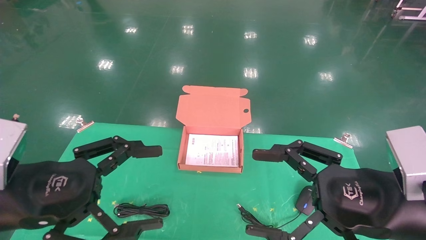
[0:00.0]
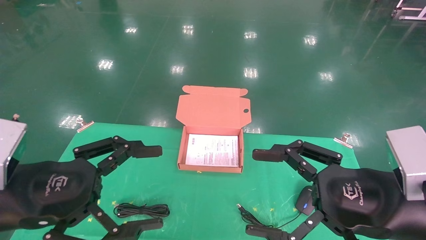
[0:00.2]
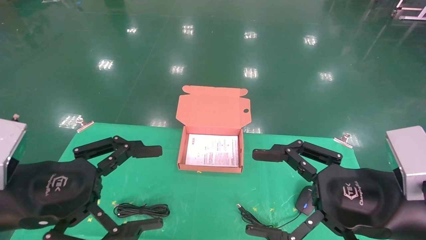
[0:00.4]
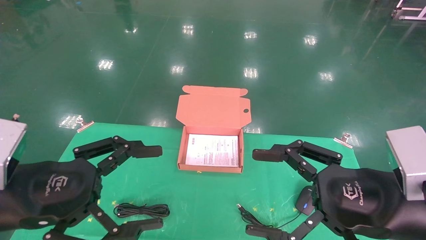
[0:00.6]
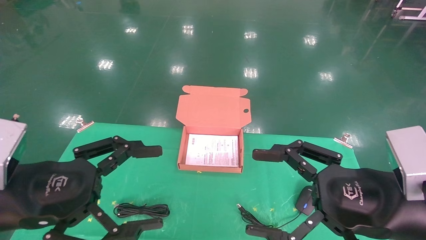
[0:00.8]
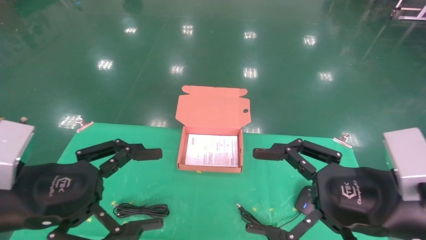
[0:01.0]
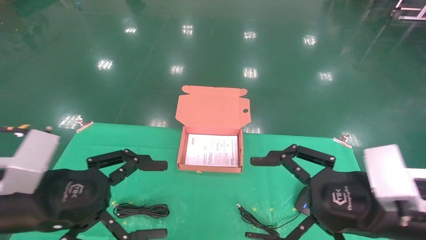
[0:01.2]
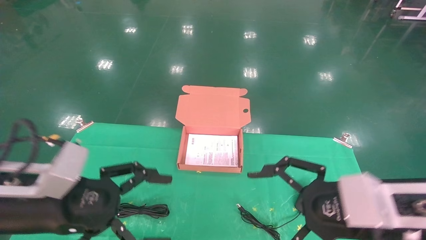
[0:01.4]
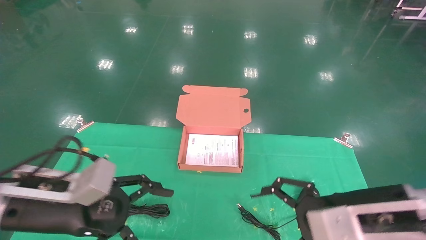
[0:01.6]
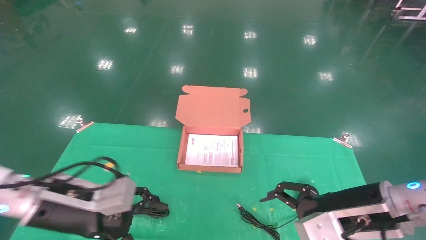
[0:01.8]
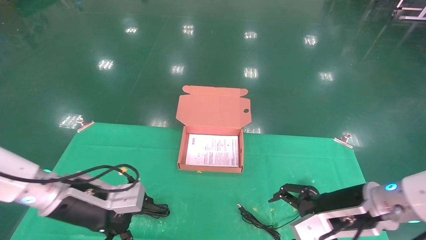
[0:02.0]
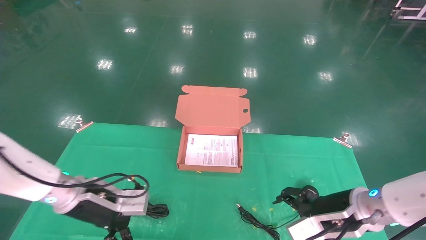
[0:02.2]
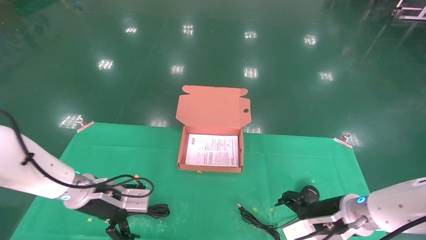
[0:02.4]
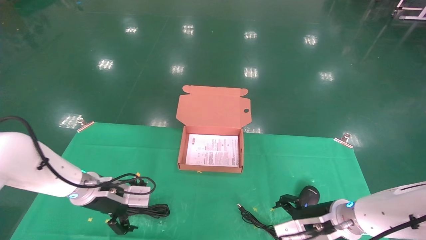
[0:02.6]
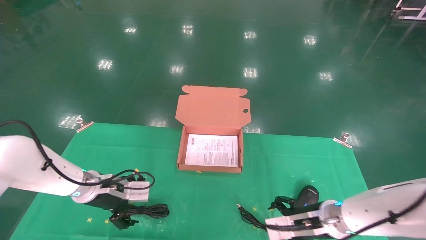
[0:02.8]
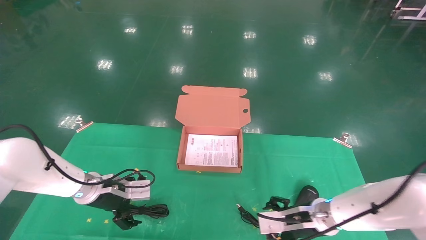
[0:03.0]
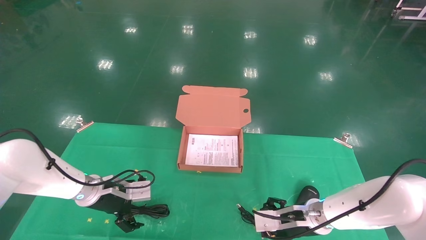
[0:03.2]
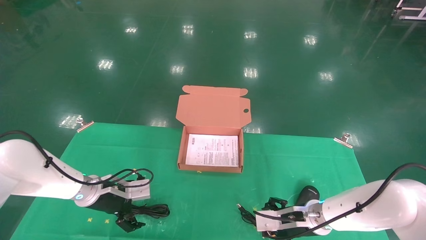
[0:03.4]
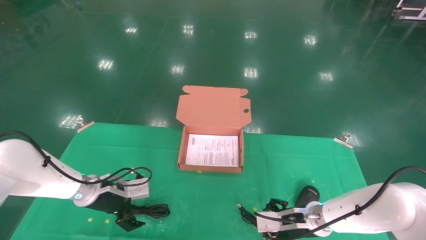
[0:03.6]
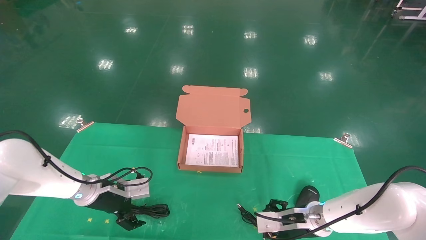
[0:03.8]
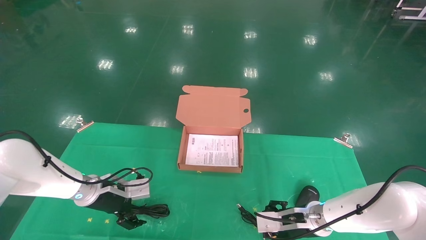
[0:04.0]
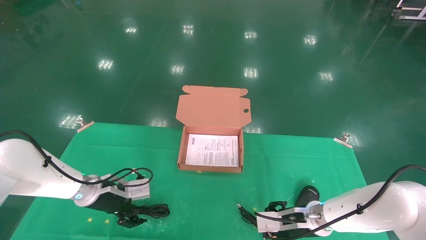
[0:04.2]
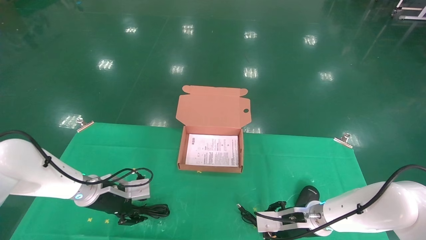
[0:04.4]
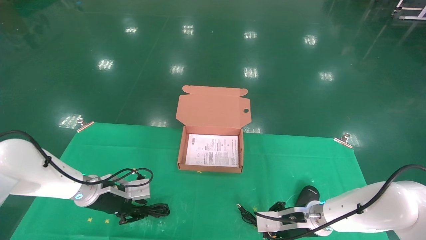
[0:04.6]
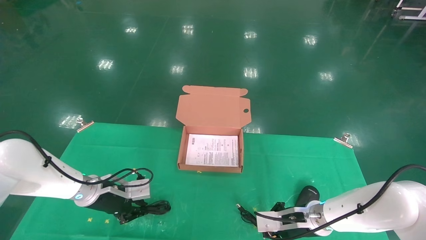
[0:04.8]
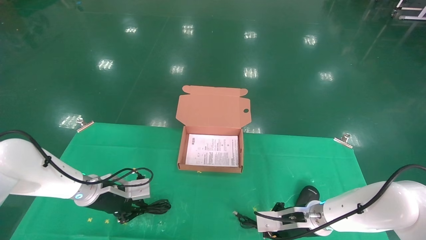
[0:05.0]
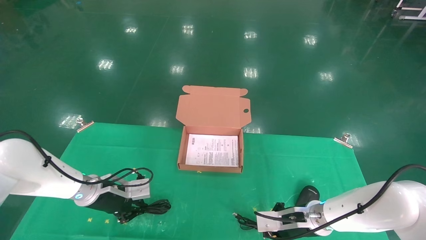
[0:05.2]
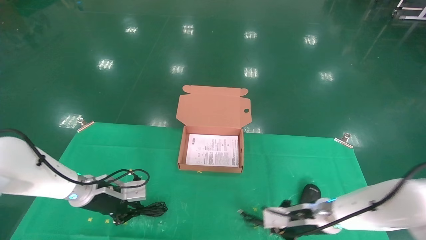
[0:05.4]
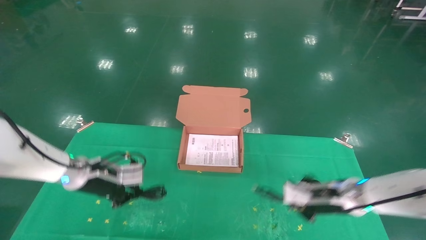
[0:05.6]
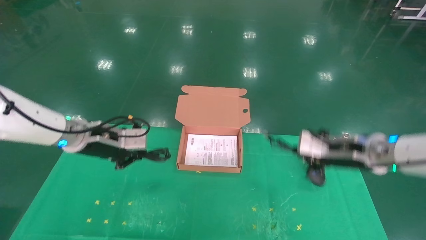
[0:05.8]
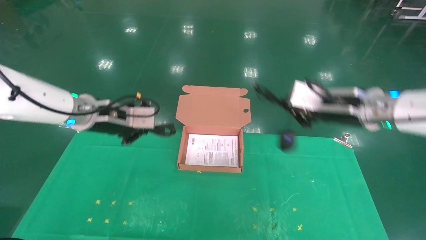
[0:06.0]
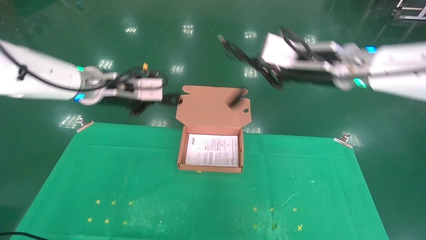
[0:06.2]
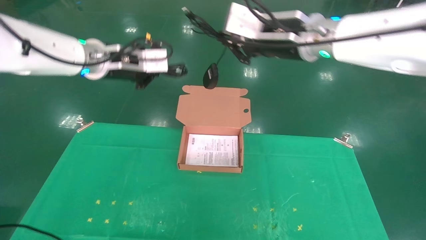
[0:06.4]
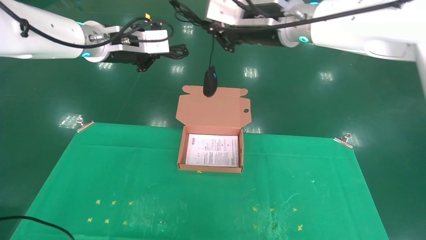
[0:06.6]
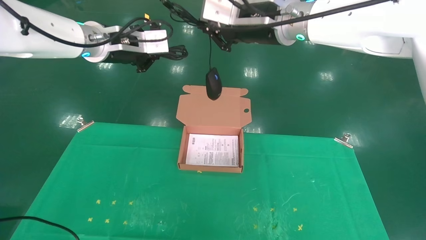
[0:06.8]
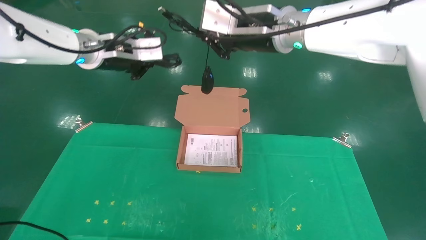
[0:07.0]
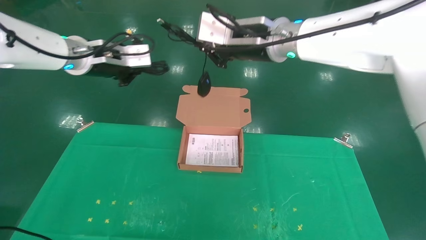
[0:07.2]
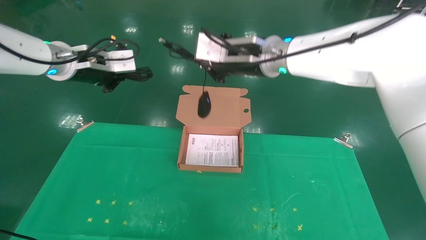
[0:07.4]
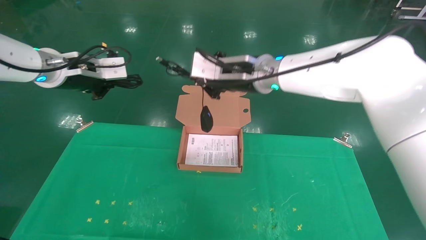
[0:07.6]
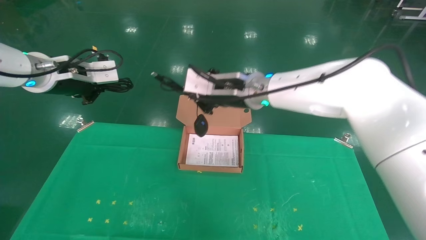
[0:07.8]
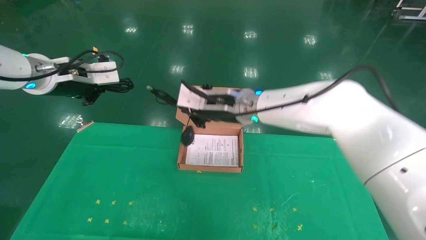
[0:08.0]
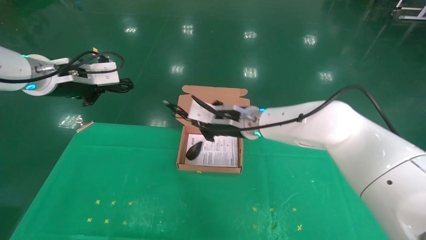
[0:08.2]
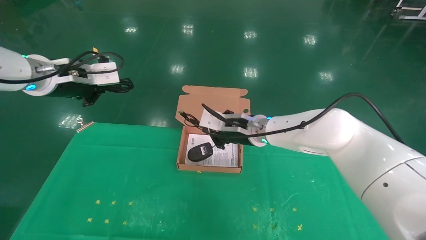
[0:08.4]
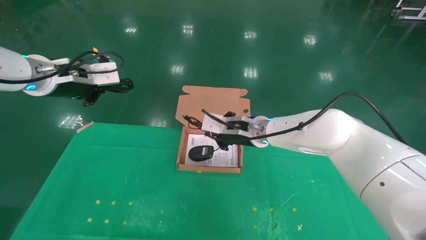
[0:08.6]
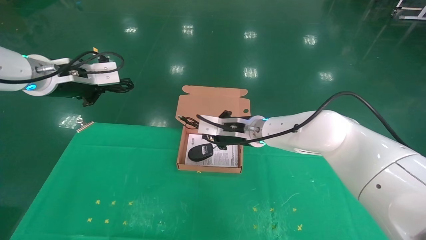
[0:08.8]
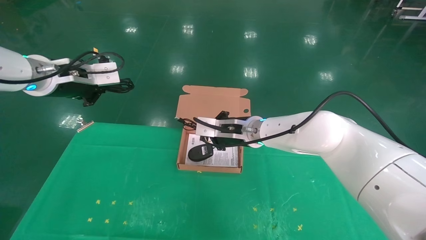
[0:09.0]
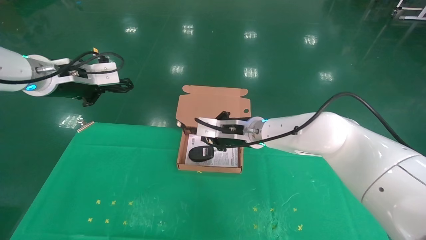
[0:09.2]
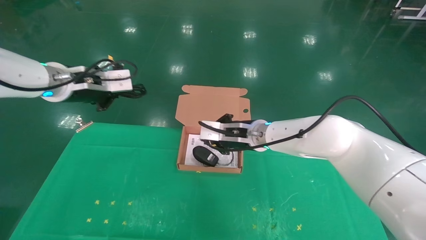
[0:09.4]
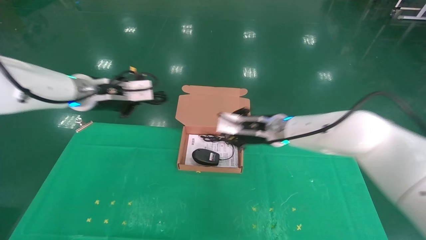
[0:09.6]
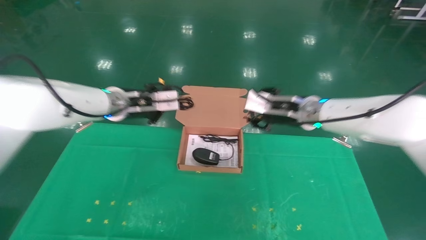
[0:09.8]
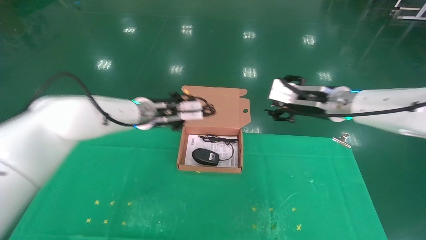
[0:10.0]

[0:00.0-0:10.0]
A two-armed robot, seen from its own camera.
Task of the whole recording: grasp data cable left put into box grasp mouse right put into box.
Step, 0:00.6 to 0:05.8: Grab and pick up both the mouse and power cord from the accessory packaging area at the same time.
0:01.4 to 0:02.8: The two grippers go approximately 20 cm forward and downward.
0:02.8 to 0:04.2: The grippers make only small movements.
0:04.2 to 0:05.8: The two grippers go some 15 cm upward. The left gripper closes its fingers, while the right gripper closes up.
0:05.8 to 0:07.2: The left gripper travels upward by roughly 15 cm; the right gripper travels upward and to the left by some 25 cm.
0:07.2 to 0:08.6: The left gripper changes place by about 5 cm, while the right gripper shifts about 20 cm downward.
0:08.6 to 0:10.0: The left gripper travels to the right, downward and forward by some 20 cm. The right gripper moves to the right and upward, approximately 20 cm, and opens.

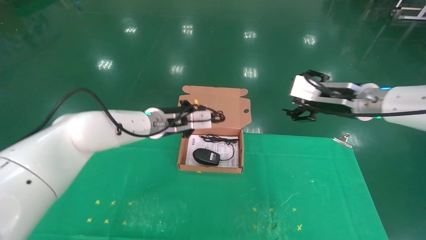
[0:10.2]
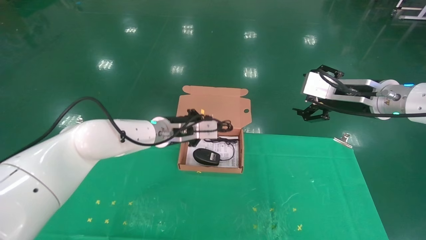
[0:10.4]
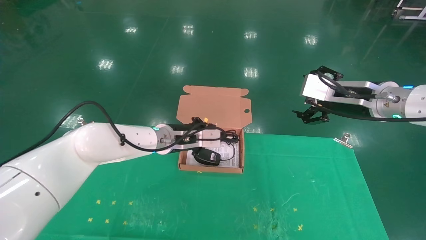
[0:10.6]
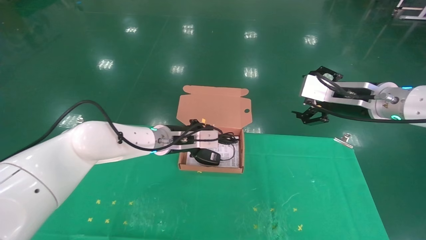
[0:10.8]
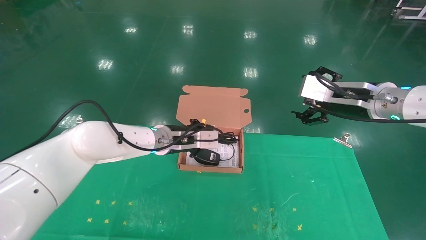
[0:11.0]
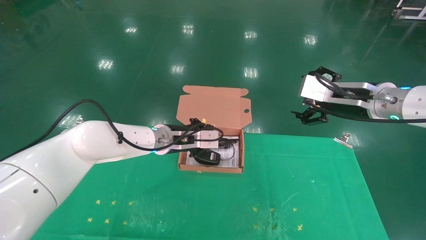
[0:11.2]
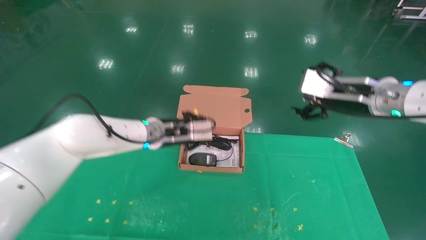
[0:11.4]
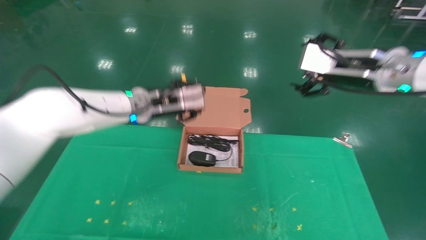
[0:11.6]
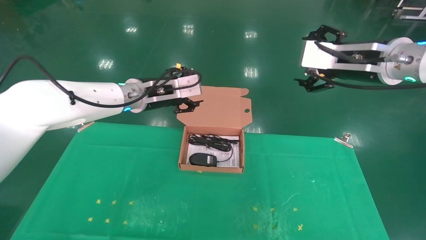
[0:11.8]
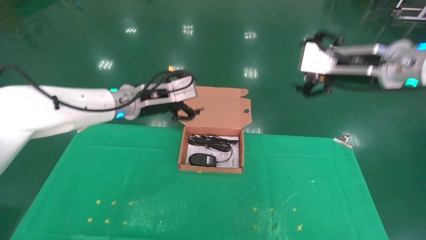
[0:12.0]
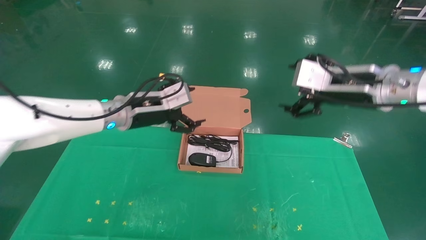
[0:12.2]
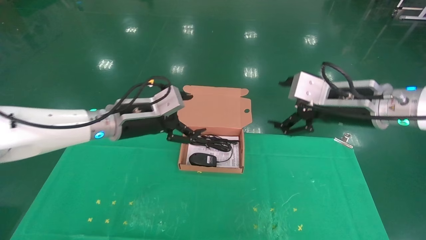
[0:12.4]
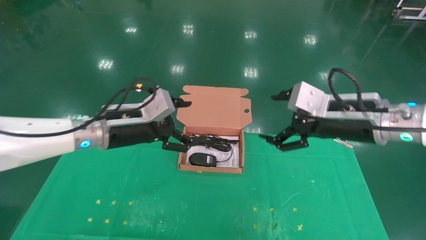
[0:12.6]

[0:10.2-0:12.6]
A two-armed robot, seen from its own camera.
Task of the whole recording: grasp data cable left put into box grasp mouse right put into box.
0:10.2 to 0:11.4: The grippers make only small movements.
0:11.4 to 0:12.6: The right gripper moves downward and backward, some 5 cm; the left gripper moves backward and to the left, some 10 cm, and opens its fingers.

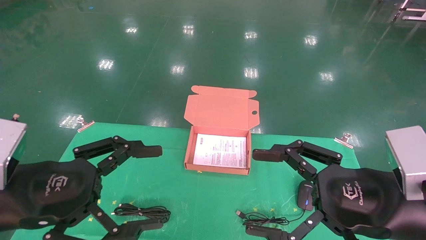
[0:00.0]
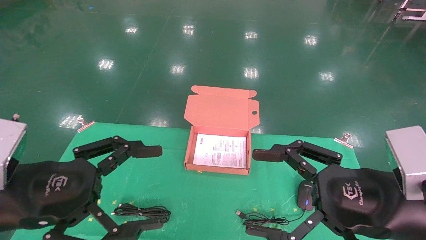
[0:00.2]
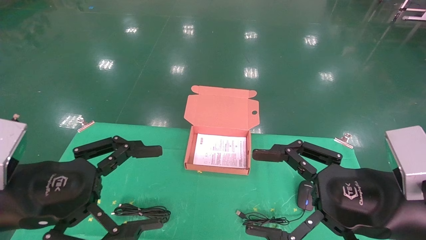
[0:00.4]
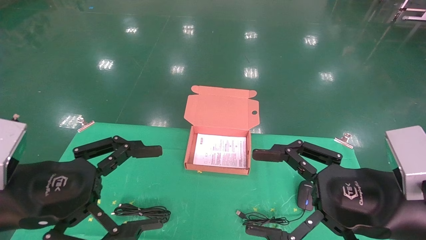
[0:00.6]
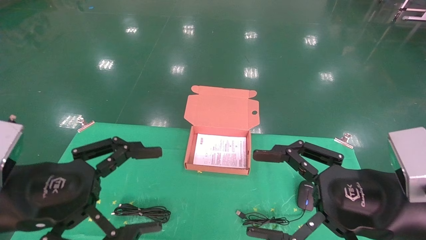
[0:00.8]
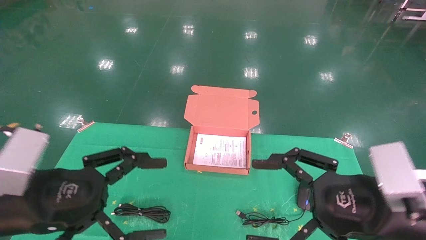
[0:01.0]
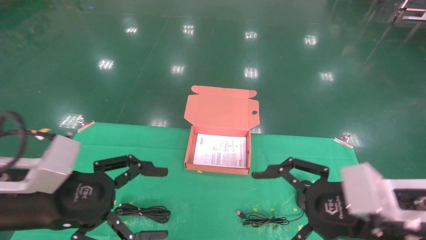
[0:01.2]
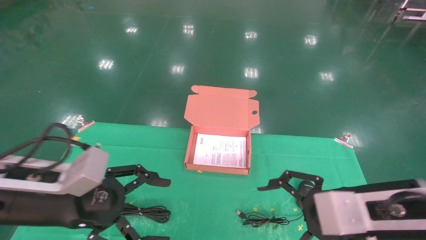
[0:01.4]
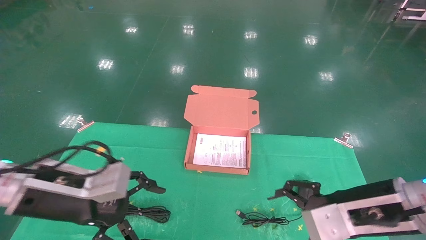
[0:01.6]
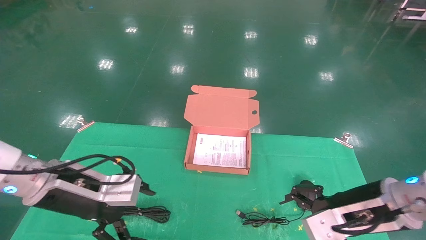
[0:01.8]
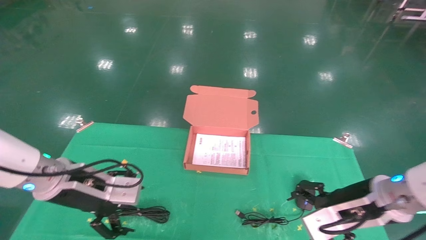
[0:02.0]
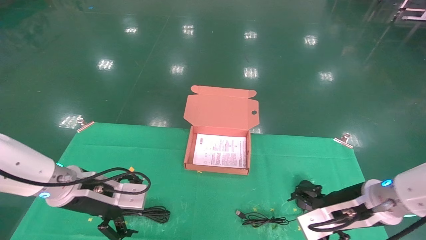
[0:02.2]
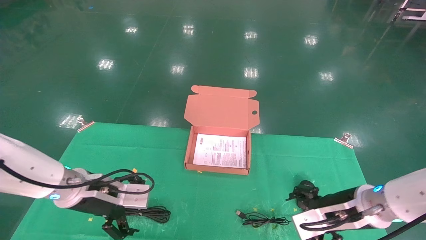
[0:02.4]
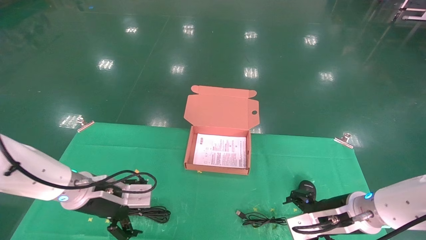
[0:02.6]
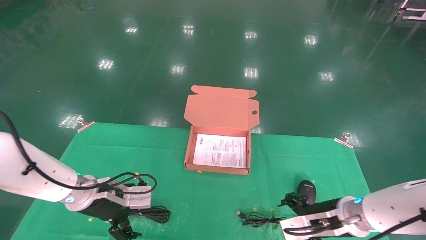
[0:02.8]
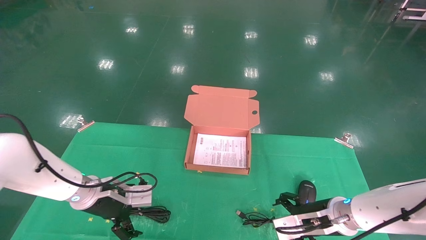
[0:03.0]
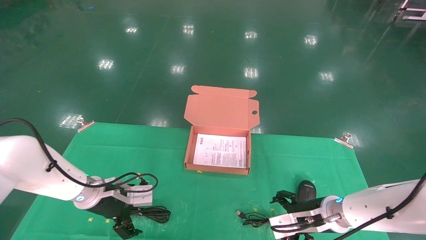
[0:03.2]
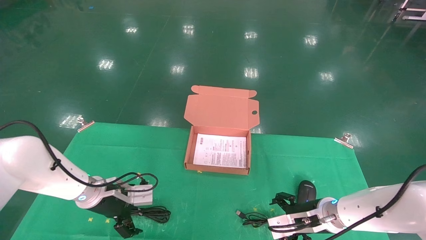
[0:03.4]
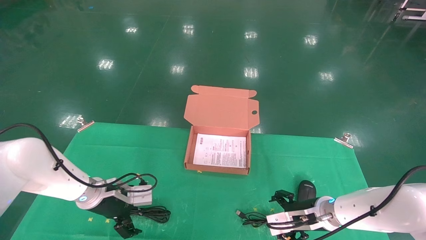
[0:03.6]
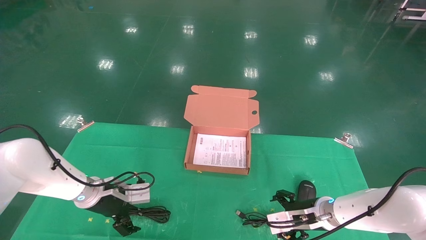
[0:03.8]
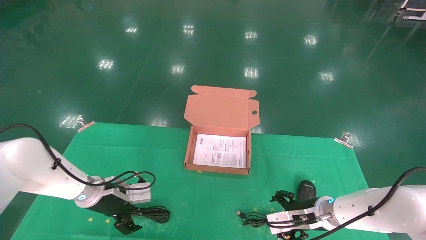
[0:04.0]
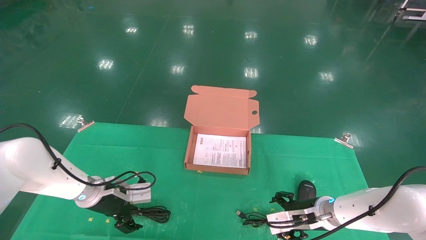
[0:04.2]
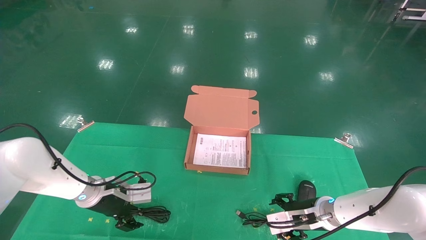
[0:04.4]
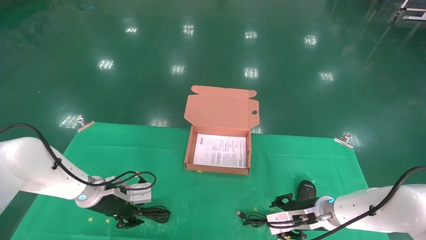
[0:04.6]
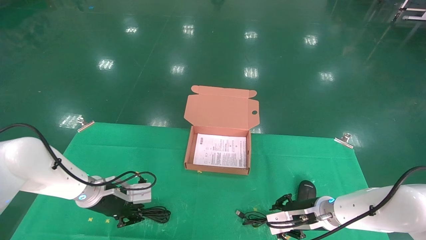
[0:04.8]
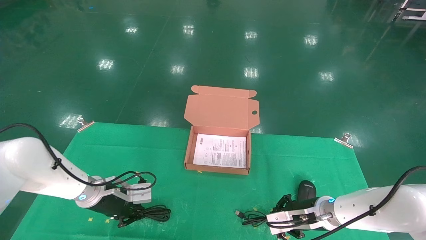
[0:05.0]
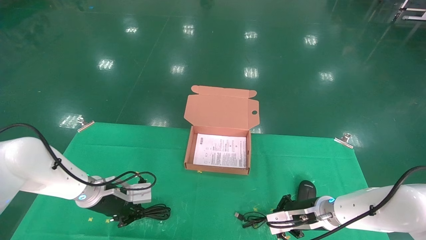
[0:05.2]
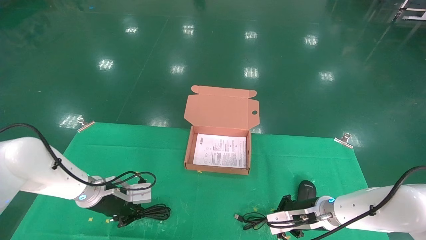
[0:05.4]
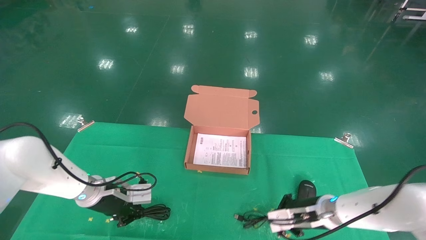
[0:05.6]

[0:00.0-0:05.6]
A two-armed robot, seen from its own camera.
Task of the whole recording: grasp data cable left put into box grasp mouse right put into box.
Step, 0:01.4 to 0:05.2: Grab and pick up both the mouse and power cord from the accessory packaging area at the same time.
0:00.0 to 0:01.4: The left gripper goes approximately 5 cm forward, while the right gripper changes place by roughly 5 cm.
0:01.4 to 0:02.8: The left gripper heads forward and downward, covering some 15 cm. Meanwhile the right gripper is displaced downward and forward by about 15 cm.
0:02.8 to 0:04.2: The left gripper changes place by some 5 cm. The right gripper heads forward, covering roughly 5 cm.
0:04.2 to 0:05.6: The right gripper shifts approximately 10 cm upward, and closes up. The left gripper shifts by roughly 5 cm, and closes.
